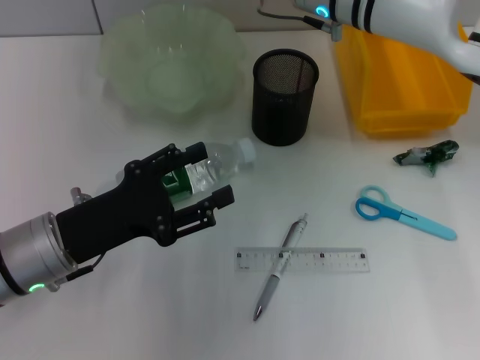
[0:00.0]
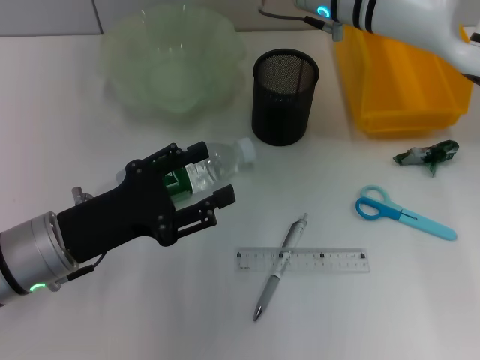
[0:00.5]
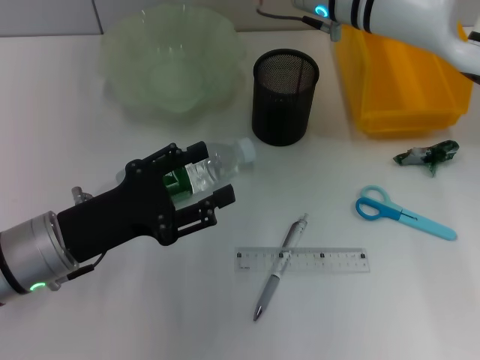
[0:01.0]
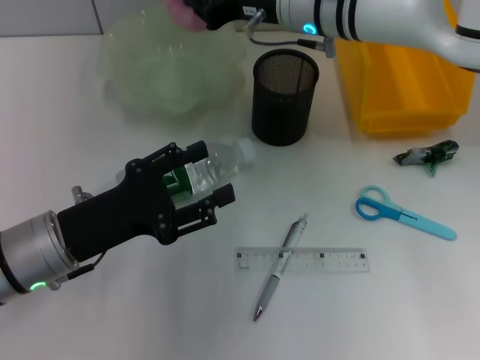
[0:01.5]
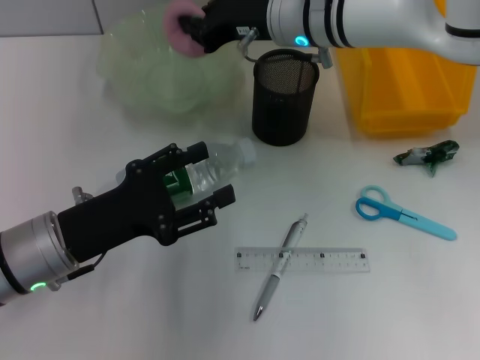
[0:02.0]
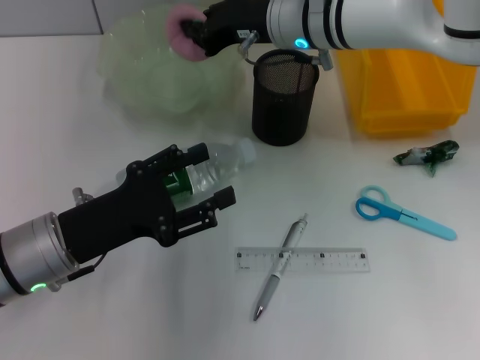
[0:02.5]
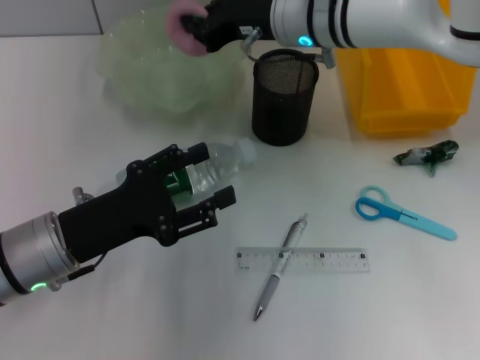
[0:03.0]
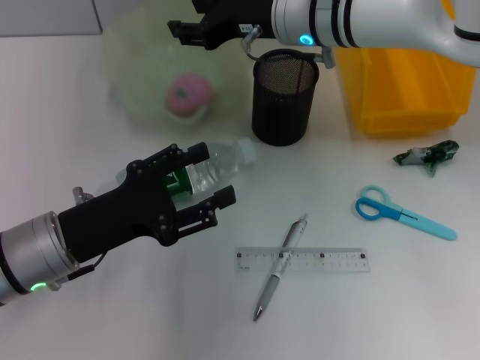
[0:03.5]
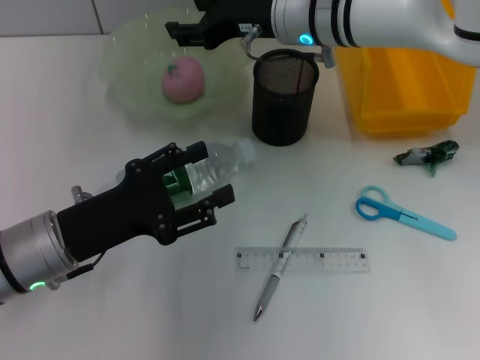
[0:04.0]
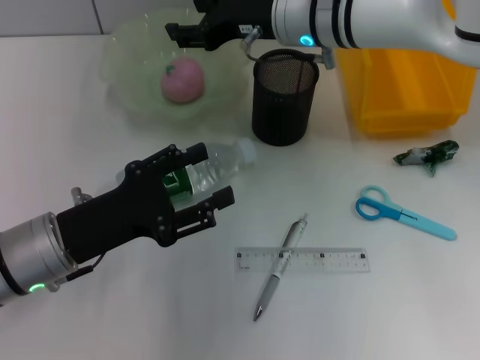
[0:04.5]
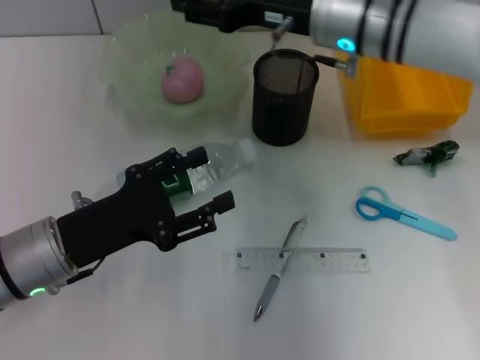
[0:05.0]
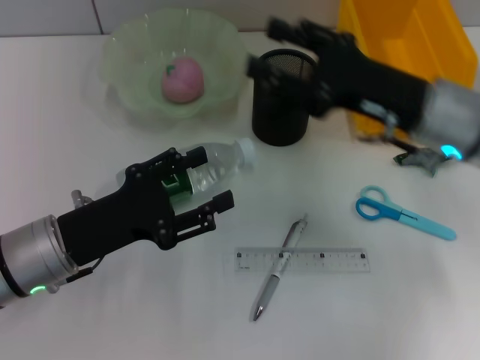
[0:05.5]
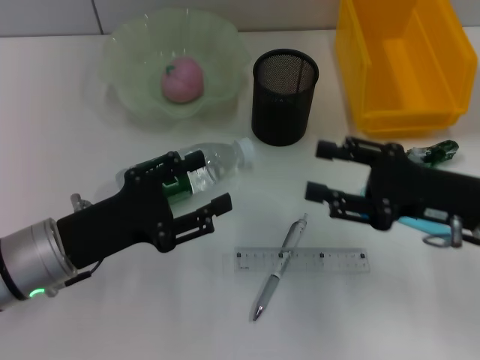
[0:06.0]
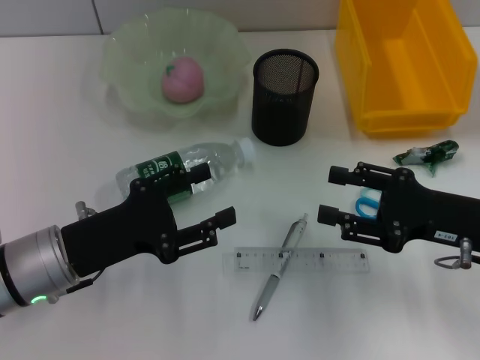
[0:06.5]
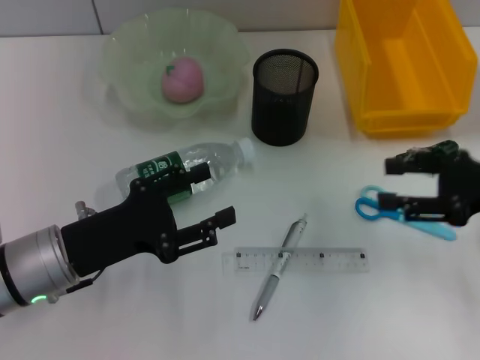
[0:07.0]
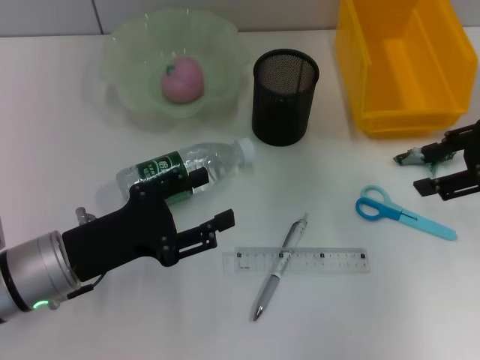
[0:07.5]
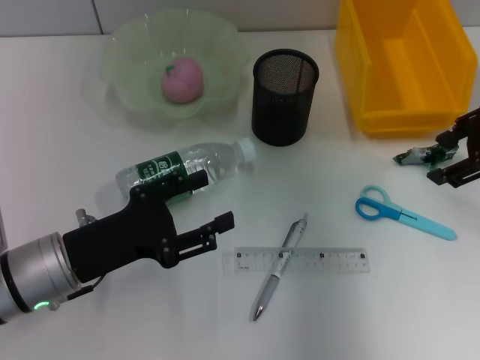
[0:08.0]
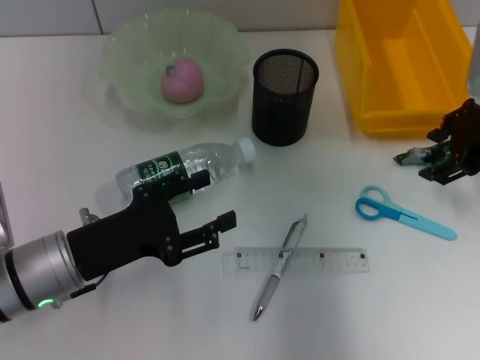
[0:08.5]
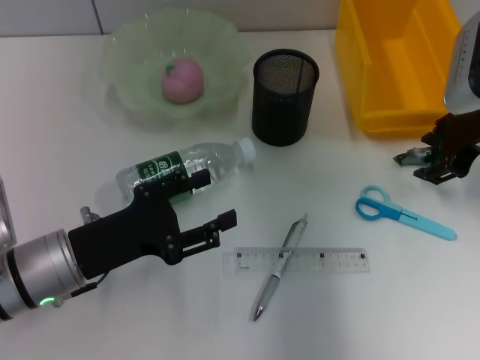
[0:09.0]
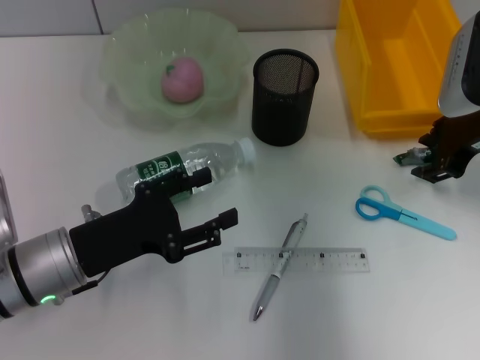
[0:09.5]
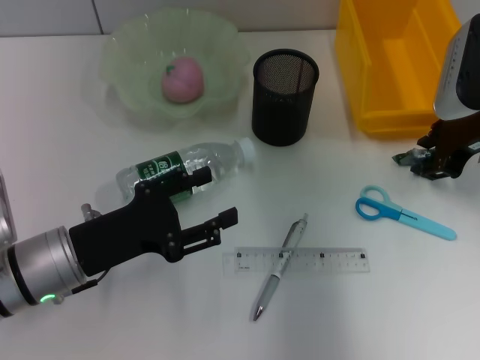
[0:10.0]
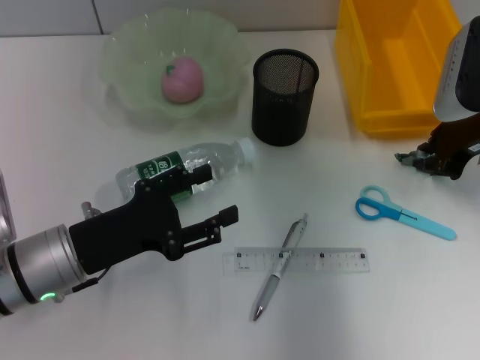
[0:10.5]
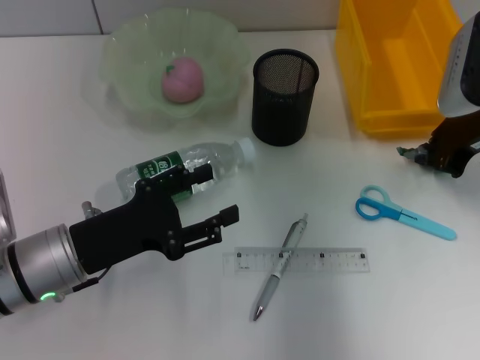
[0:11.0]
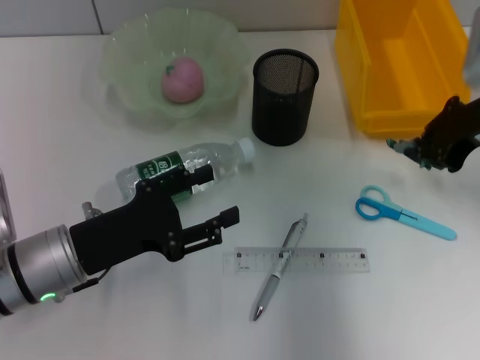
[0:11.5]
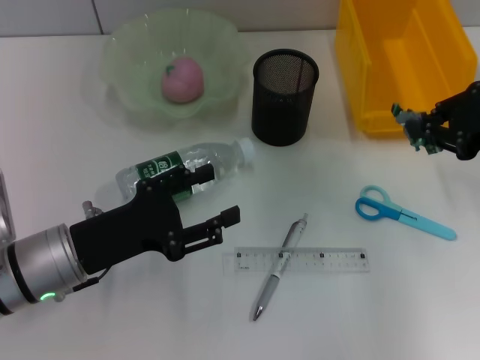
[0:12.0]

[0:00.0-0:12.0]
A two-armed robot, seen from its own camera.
Step, 0:00.0 to 0:03.5: Place the peach into the fruit bowl with the right hand.
Step, 0:04.0 to 0:10.5: Grab the plastic with the right hand.
0:00.0 to 0:02.0: The grippers move only a little.
0:02.0 to 0:04.0: The right gripper opens up.
0:04.0 to 0:06.0: The right gripper moves to the right, backward and downward, roughly 25 cm.
0:06.0 to 0:08.0: The right gripper moves upward and forward, roughly 15 cm.
0:08.0 to 0:10.0: The right gripper goes roughly 5 cm downward.
0:10.0 to 0:12.0: The right gripper travels backward by about 5 cm, and closes its fingers.

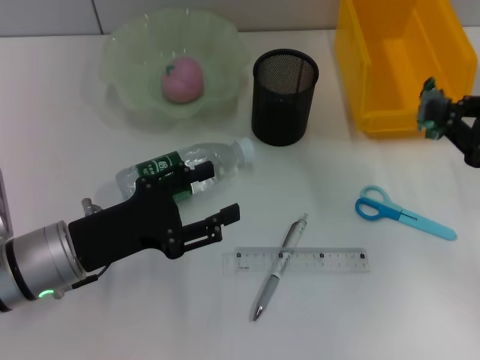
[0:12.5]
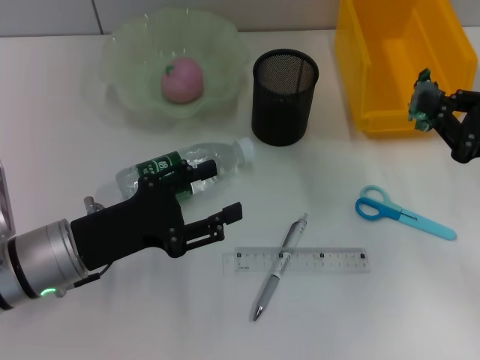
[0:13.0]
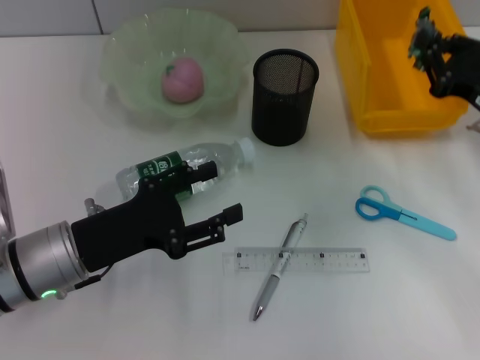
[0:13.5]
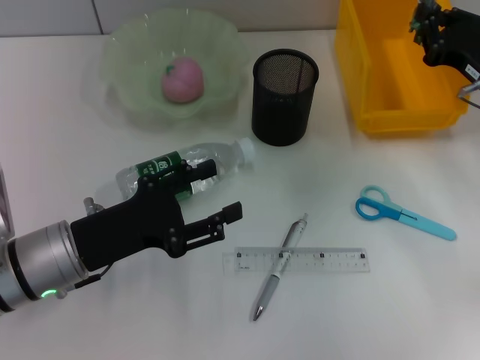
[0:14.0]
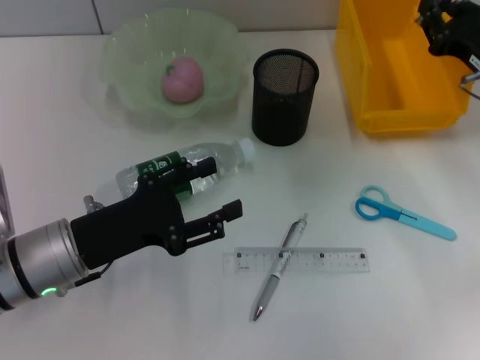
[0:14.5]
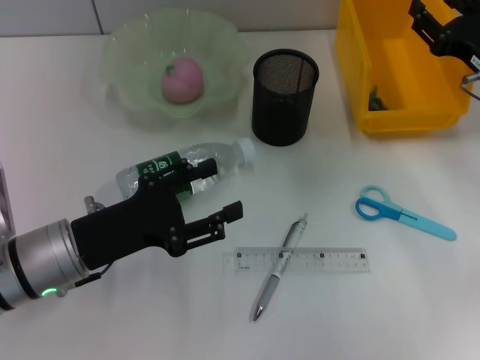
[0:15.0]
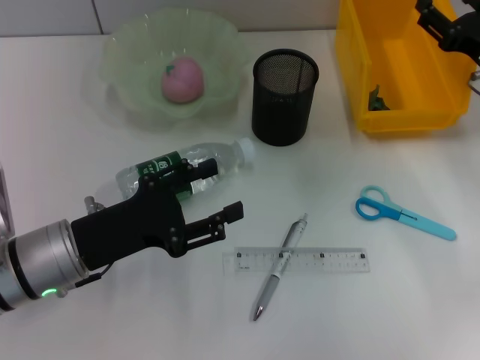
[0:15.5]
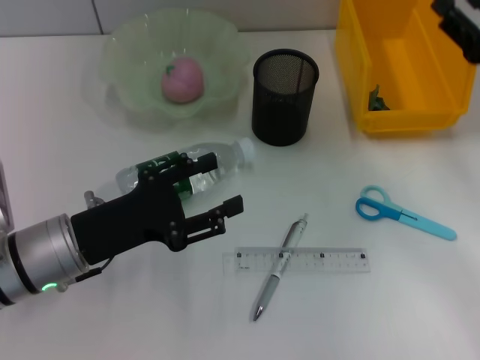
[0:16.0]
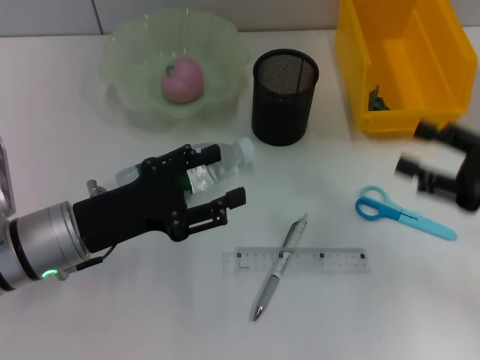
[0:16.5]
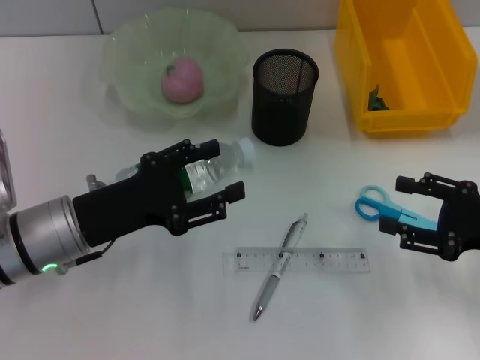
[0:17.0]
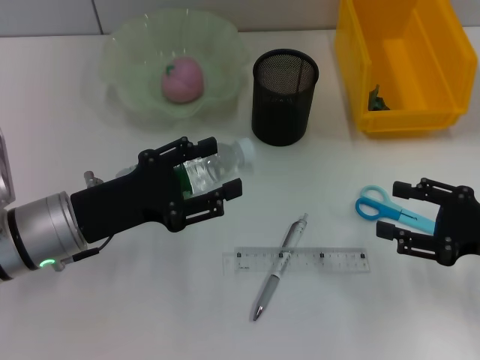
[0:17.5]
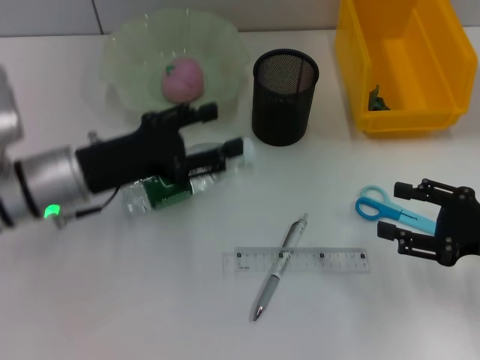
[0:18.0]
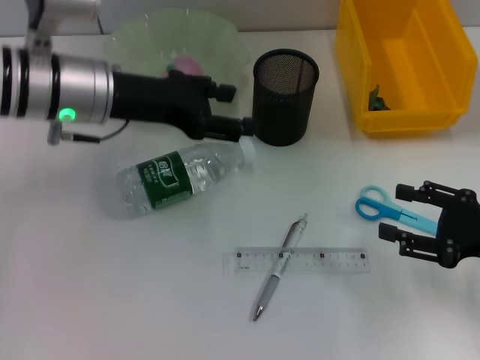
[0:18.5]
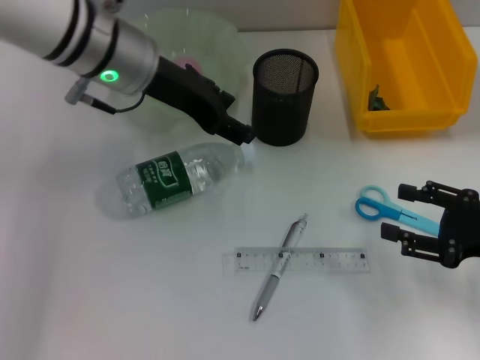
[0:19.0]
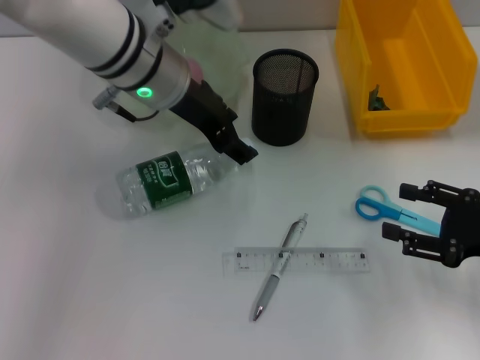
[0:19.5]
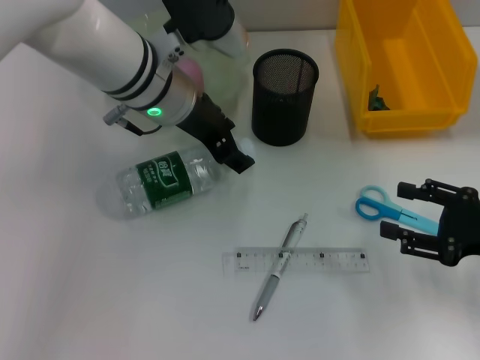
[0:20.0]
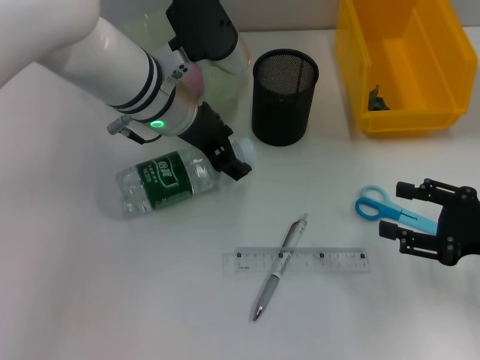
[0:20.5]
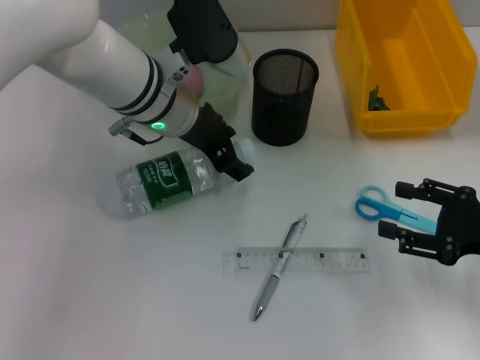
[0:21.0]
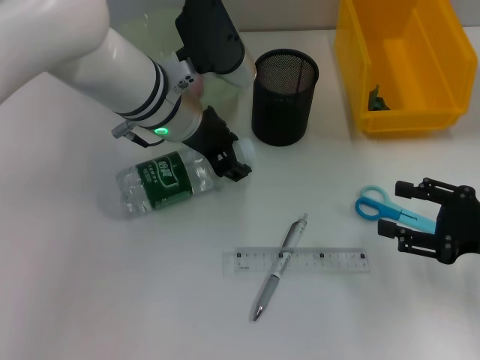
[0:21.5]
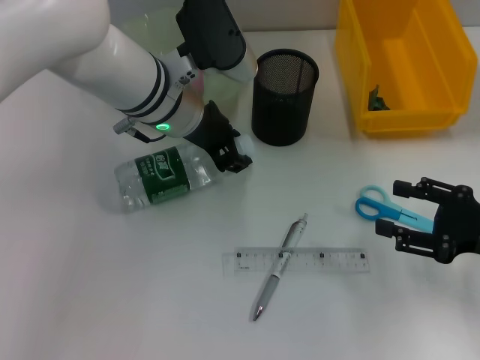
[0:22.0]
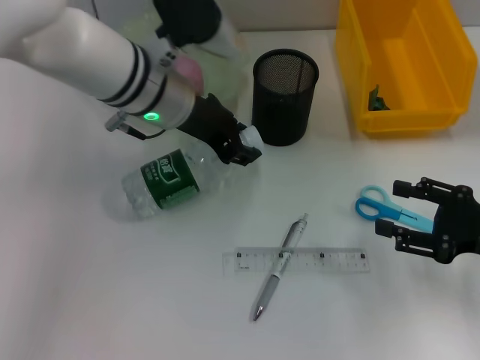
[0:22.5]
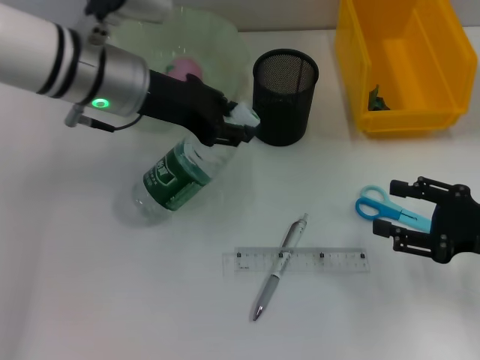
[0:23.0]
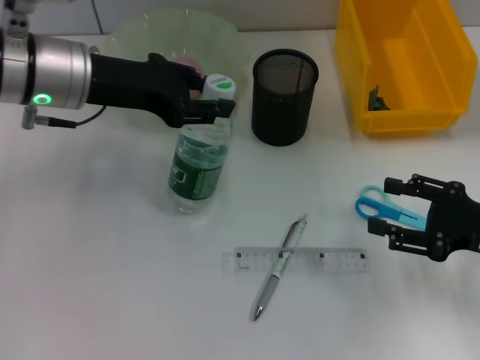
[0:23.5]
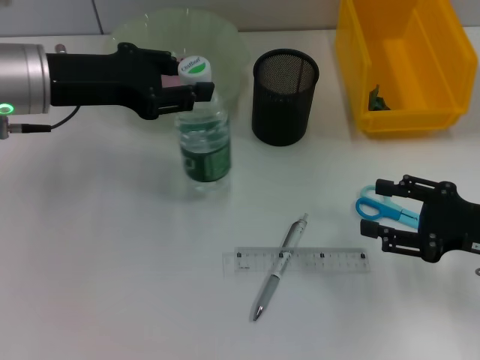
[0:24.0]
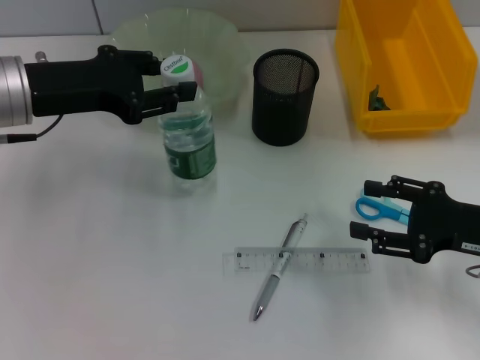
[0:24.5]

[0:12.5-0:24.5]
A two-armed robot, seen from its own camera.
Step, 0:12.5 to 0:15.0: Place the plastic into the trash can with the right hand.
Step, 0:15.5 to 0:21.5: Grab the water bottle with the left hand.
0:12.5 to 0:14.5: The right gripper heads forward, covering some 10 cm.
0:14.5 to 0:16.5: The right gripper moves backward, approximately 10 cm, and opens its fingers.
0:16.5 to 0:18.5: The left gripper is displaced forward and upward by about 15 cm.
0:18.5 to 0:20.5: The left gripper shifts some 10 cm to the right.
0:20.5 to 0:22.5: The left gripper closes up.
0:22.5 to 0:24.5: The left gripper shifts approximately 15 cm to the left.

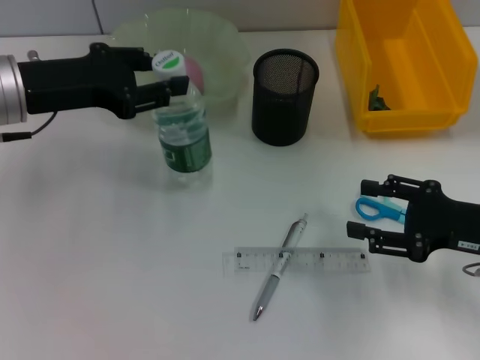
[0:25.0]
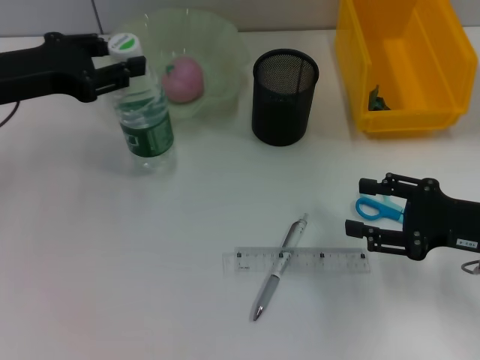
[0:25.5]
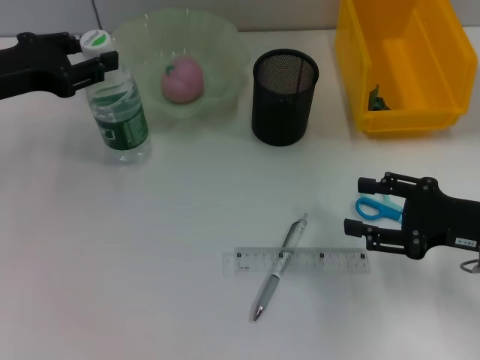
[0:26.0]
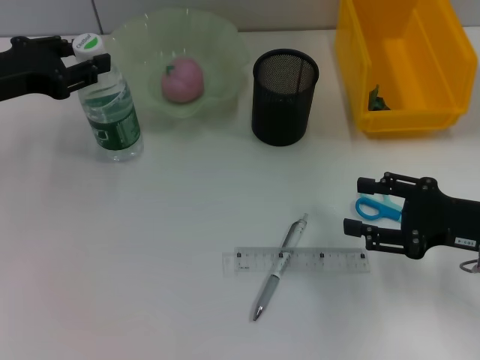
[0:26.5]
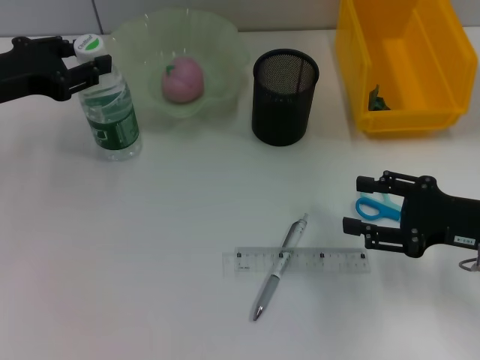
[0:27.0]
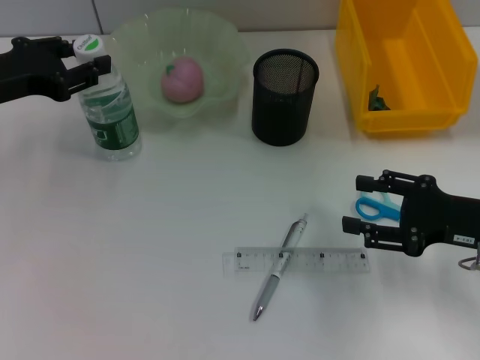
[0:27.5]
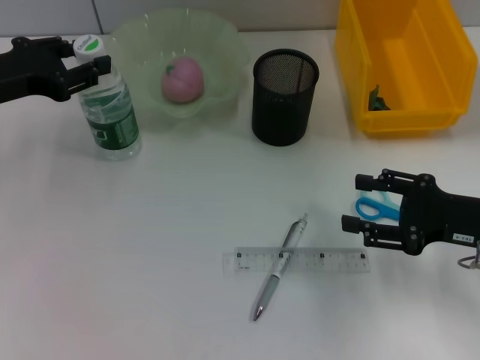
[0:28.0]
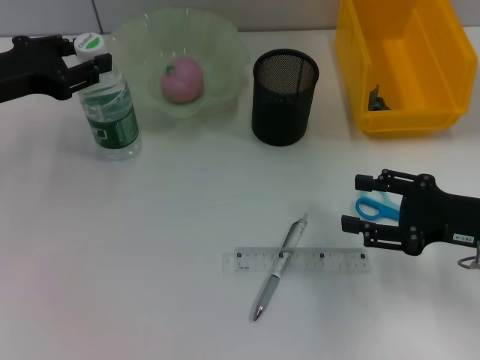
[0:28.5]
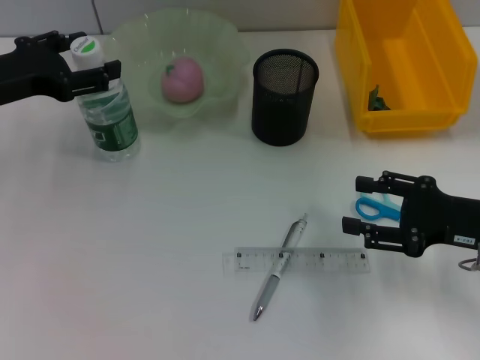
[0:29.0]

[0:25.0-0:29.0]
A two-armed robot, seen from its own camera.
0:25.0 to 0:27.0: The left gripper is displaced to the left by approximately 5 cm.
0:27.0 to 0:29.0: Both grippers stay about where they are.
